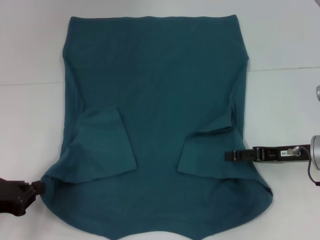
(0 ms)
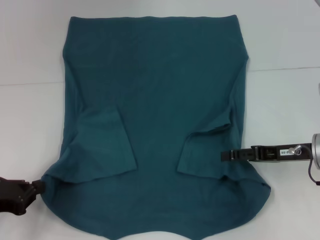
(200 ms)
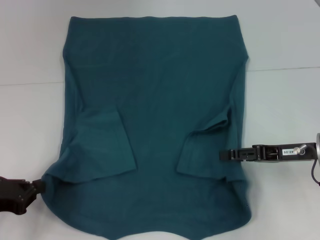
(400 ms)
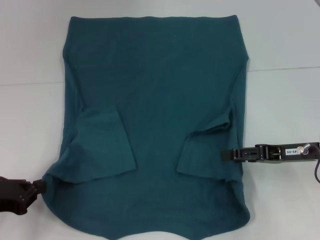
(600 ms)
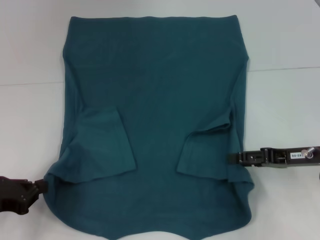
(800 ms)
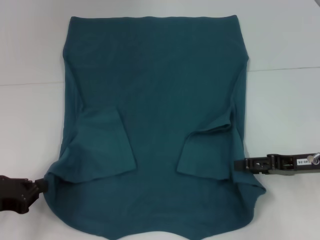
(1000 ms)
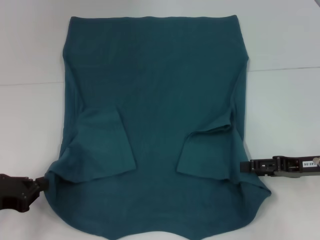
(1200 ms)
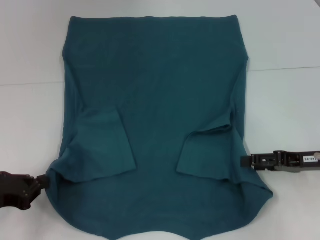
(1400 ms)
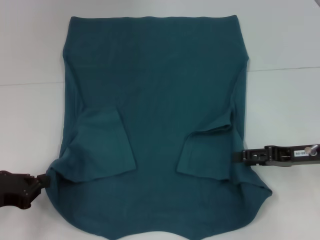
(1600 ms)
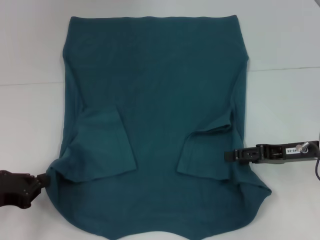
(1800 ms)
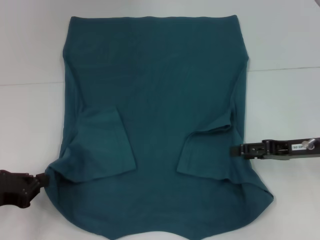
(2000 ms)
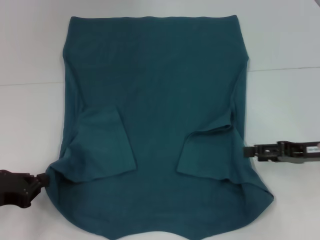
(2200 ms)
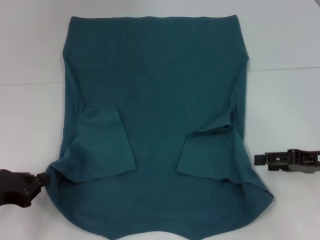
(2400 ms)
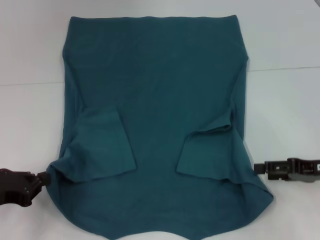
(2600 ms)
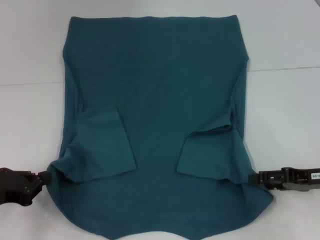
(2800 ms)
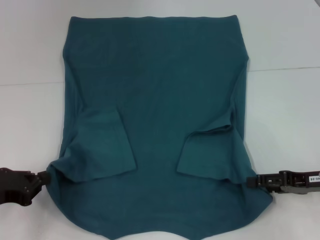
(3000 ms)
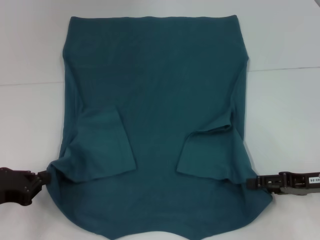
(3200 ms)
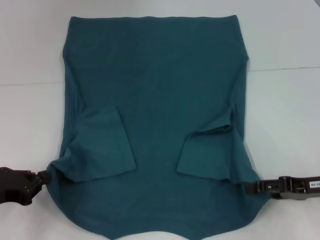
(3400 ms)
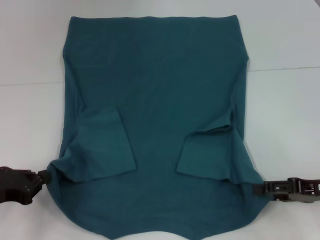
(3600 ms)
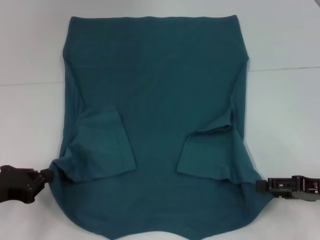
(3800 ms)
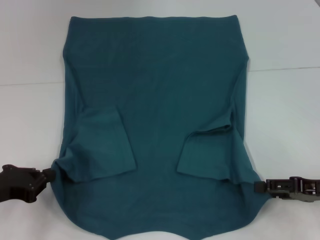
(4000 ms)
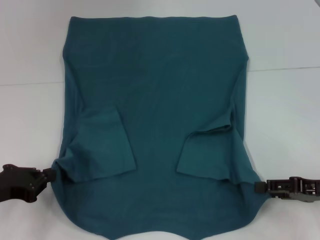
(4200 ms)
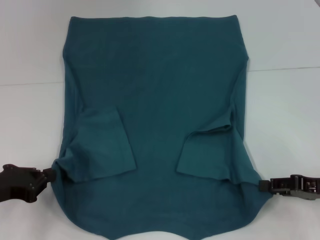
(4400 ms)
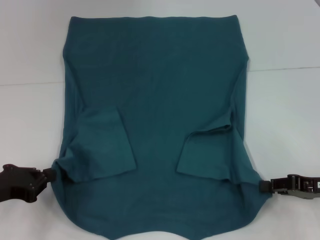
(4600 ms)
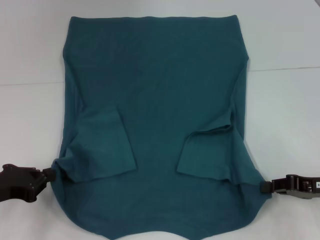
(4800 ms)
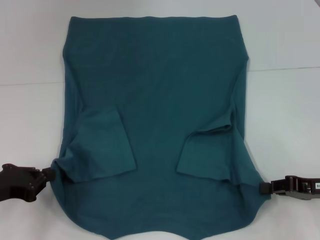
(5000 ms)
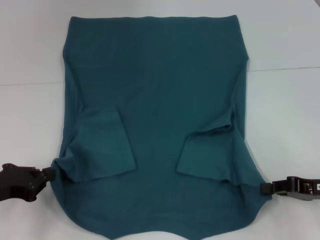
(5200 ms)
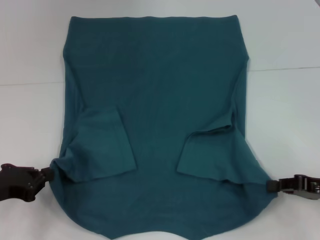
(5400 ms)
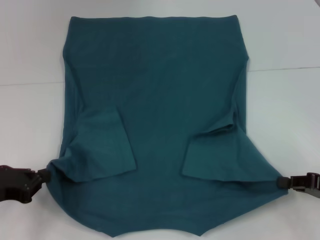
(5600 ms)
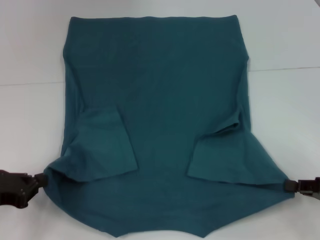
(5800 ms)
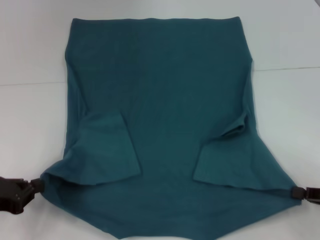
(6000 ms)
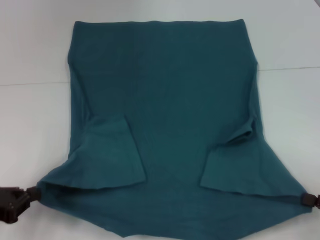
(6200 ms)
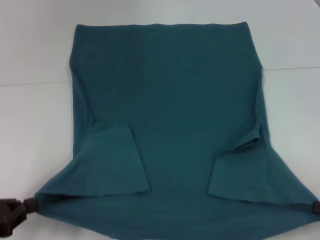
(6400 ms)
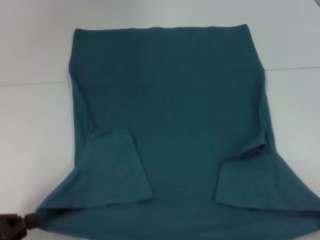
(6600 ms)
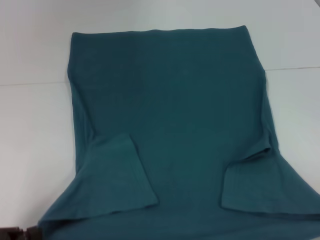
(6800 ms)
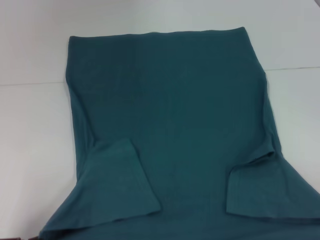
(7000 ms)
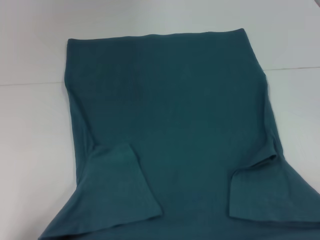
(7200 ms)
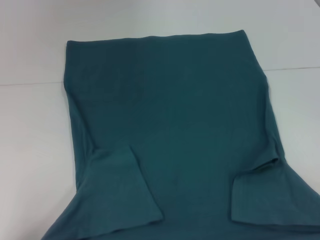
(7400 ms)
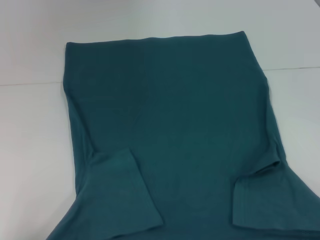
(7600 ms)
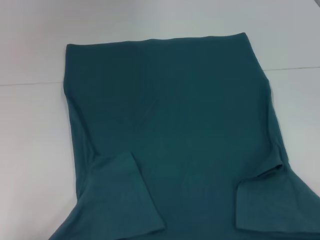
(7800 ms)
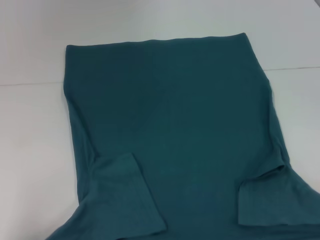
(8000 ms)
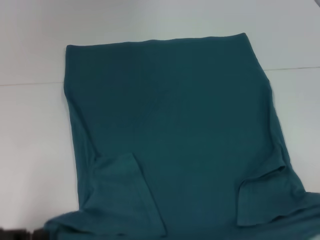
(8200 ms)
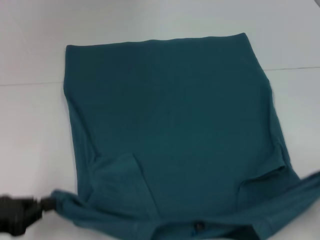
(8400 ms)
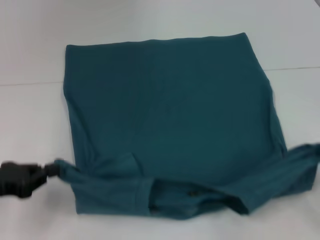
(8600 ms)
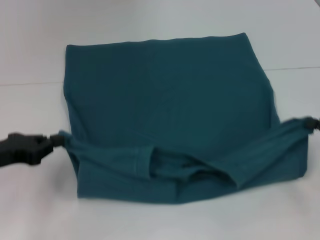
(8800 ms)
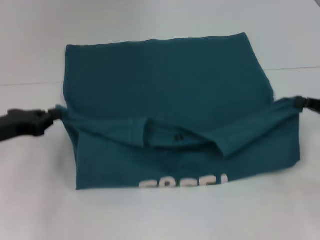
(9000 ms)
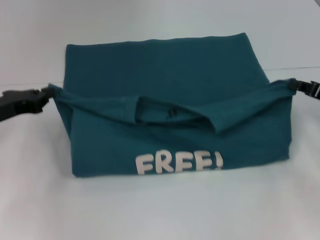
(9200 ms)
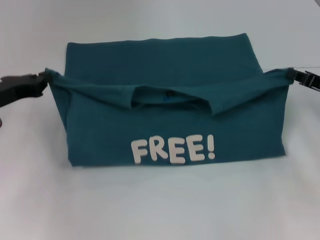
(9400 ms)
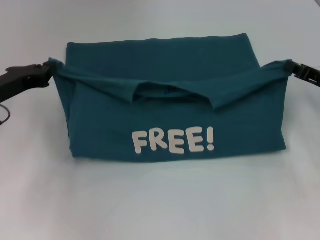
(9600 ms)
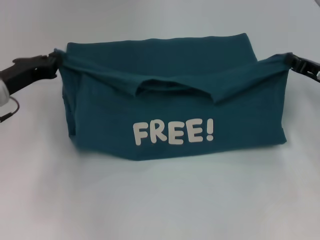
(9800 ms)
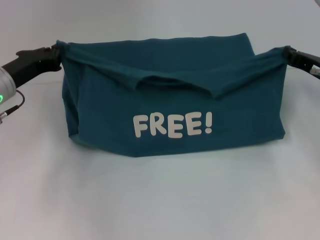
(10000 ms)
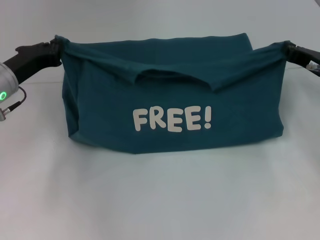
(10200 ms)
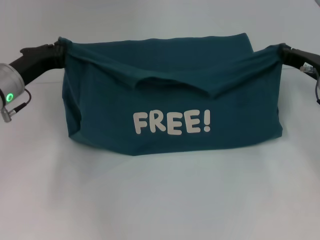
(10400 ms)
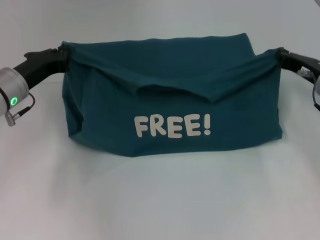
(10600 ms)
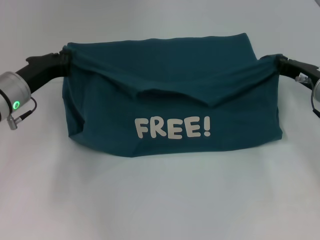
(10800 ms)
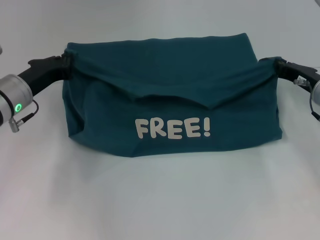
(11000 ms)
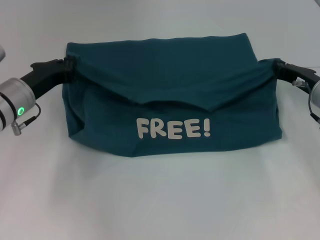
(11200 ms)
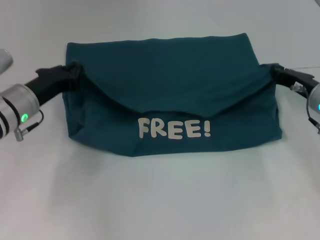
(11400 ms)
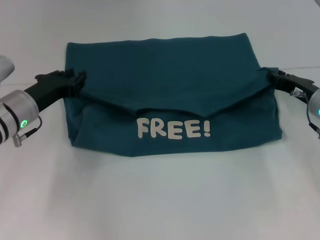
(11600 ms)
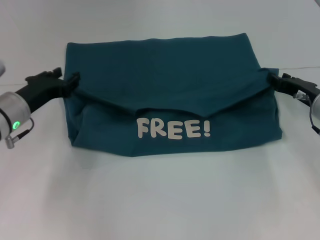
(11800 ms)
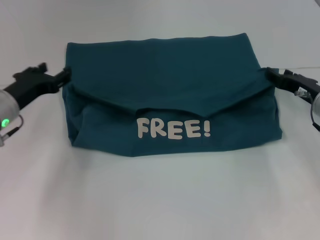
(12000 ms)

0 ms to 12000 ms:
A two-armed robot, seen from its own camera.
Step, 0 ms to 5200 ms: Grab the bottom right corner with your right hand.
Step, 5400 ms to 12000 ms: Fold the clothes to the left.
Step, 5400 ms to 12000 ms: Fold the clothes to the right.
0 ms to 3000 ms: There are only small adjustments of the grippers.
3000 ms to 4400 ms: The grippers make only small movements.
4400 ms to 6000 ms: The right gripper moves backward, roughly 5 cm, and closes its fingers.
6000 ms to 7600 ms: The right gripper is displaced backward and to the right by roughly 10 cm. The left gripper moves backward, approximately 10 cm.
7600 ms to 9000 ms: The two grippers go approximately 20 cm forward.
9000 ms to 10400 ms: The left gripper goes roughly 10 cm forward and to the right. The right gripper shifts approximately 10 cm forward and to the left.
10400 ms to 12000 ms: The right gripper opens up, while the left gripper opens.

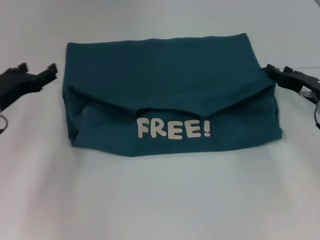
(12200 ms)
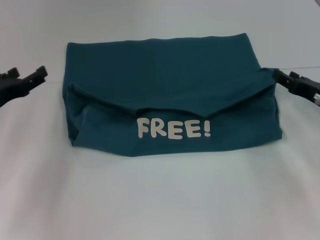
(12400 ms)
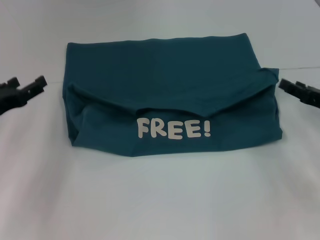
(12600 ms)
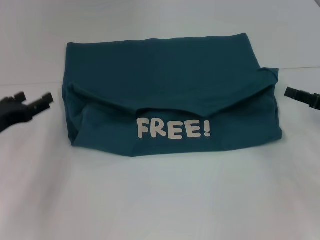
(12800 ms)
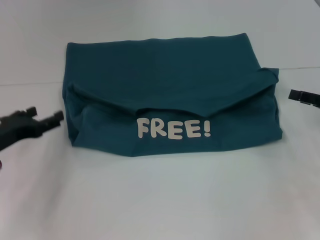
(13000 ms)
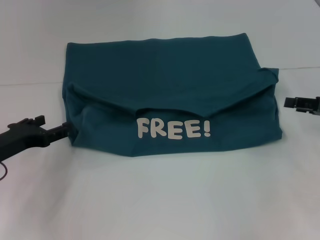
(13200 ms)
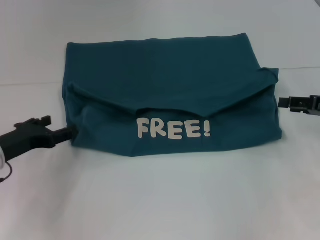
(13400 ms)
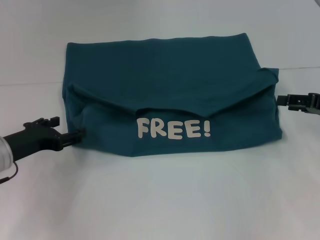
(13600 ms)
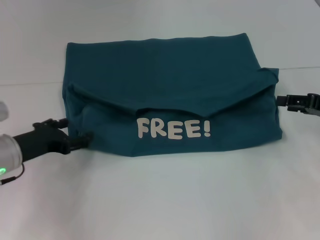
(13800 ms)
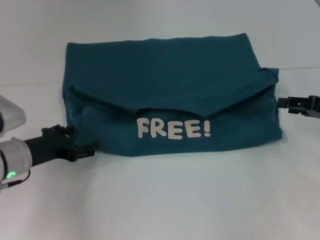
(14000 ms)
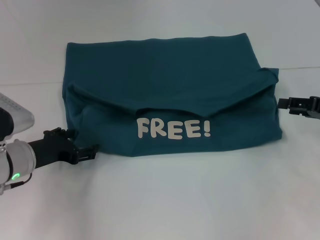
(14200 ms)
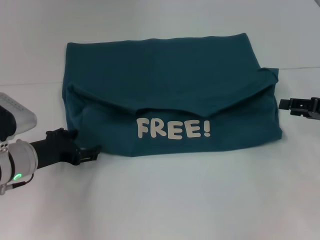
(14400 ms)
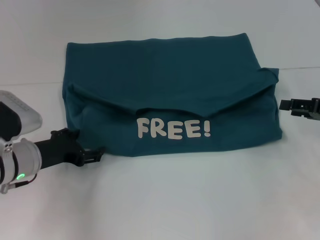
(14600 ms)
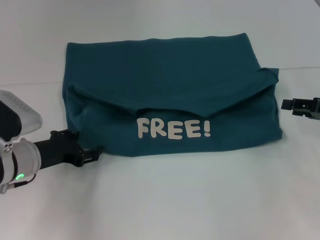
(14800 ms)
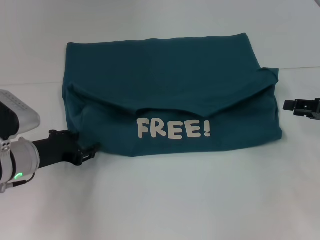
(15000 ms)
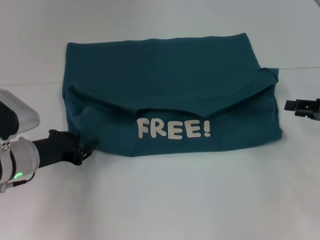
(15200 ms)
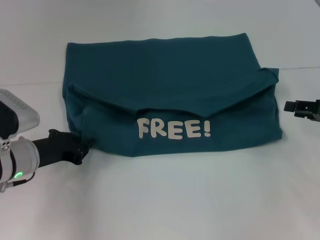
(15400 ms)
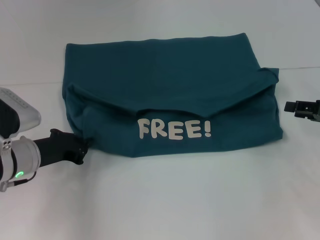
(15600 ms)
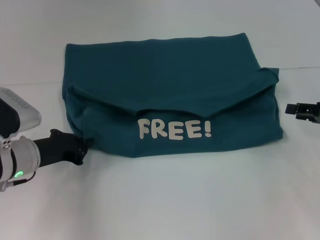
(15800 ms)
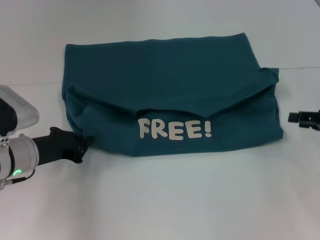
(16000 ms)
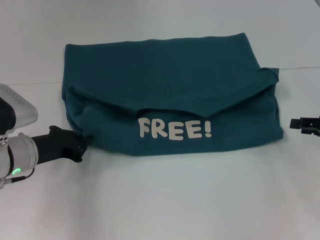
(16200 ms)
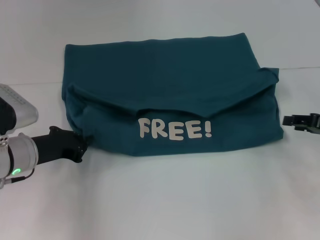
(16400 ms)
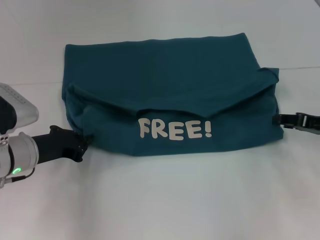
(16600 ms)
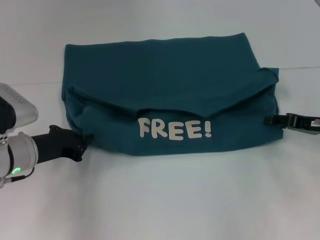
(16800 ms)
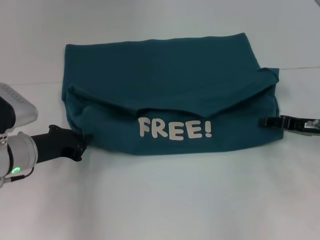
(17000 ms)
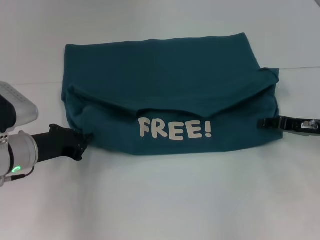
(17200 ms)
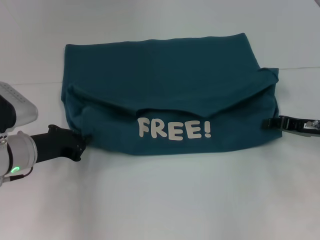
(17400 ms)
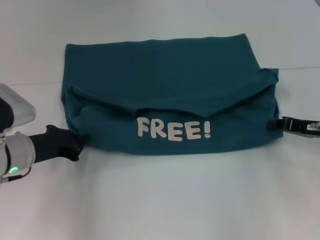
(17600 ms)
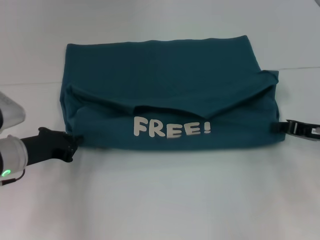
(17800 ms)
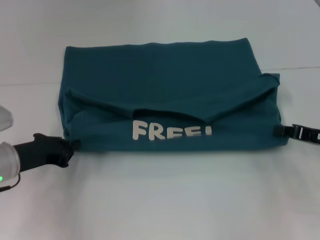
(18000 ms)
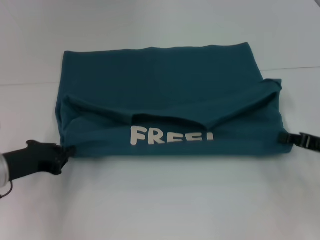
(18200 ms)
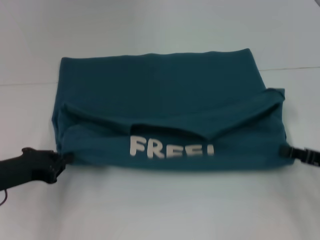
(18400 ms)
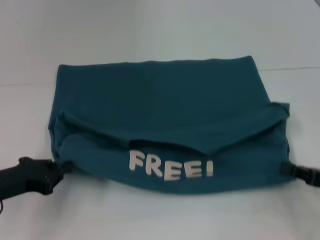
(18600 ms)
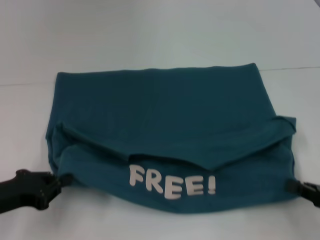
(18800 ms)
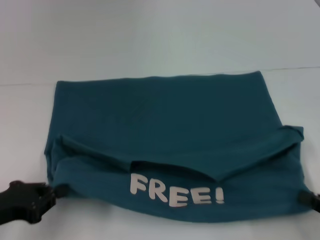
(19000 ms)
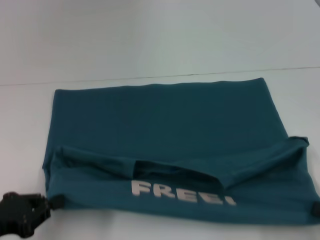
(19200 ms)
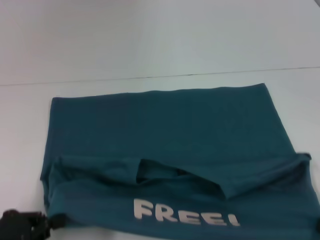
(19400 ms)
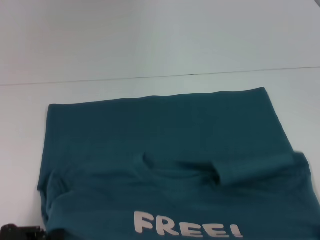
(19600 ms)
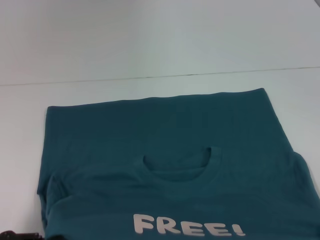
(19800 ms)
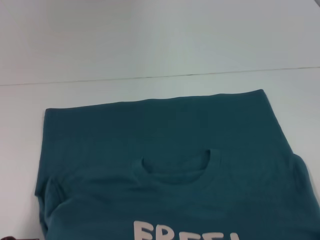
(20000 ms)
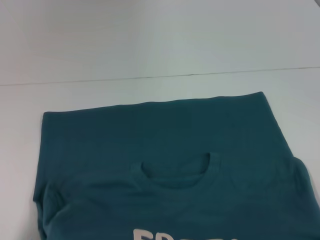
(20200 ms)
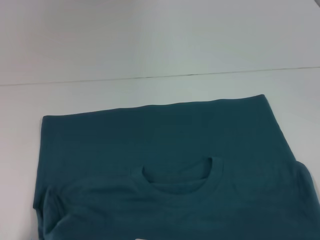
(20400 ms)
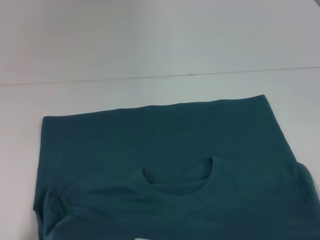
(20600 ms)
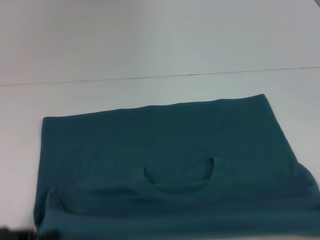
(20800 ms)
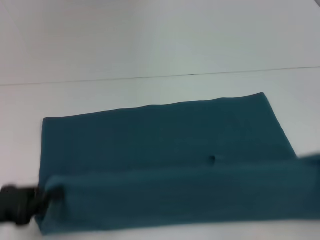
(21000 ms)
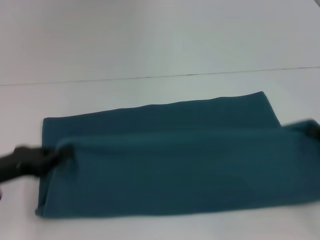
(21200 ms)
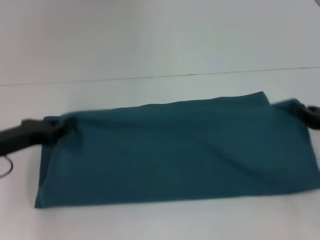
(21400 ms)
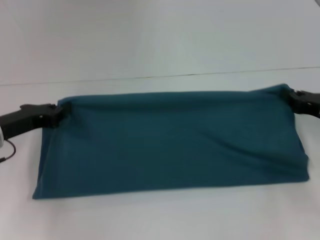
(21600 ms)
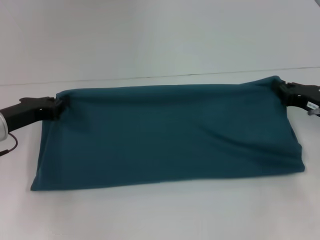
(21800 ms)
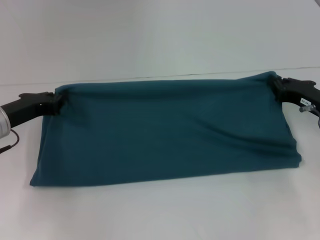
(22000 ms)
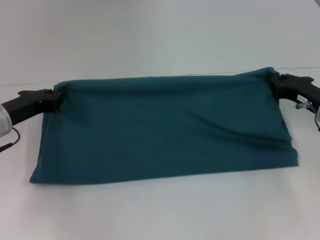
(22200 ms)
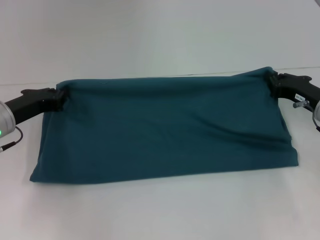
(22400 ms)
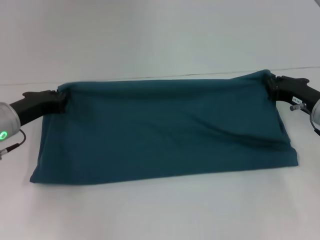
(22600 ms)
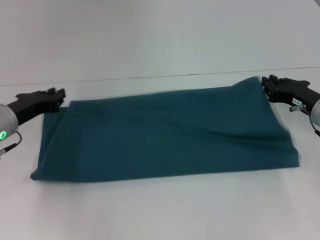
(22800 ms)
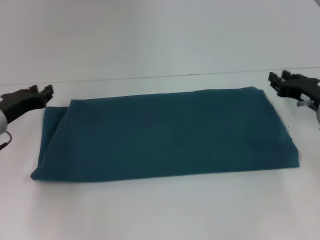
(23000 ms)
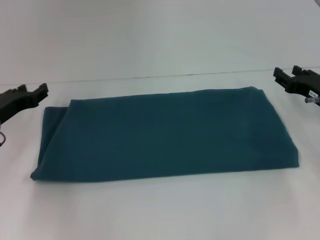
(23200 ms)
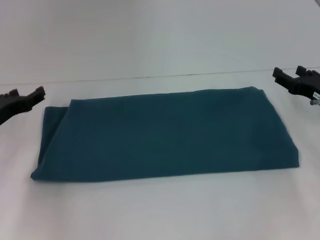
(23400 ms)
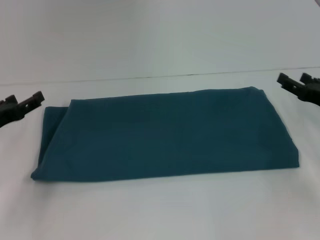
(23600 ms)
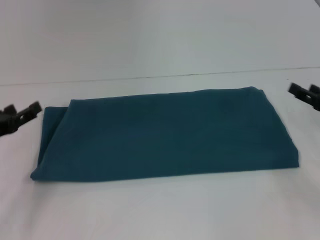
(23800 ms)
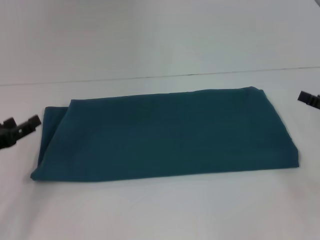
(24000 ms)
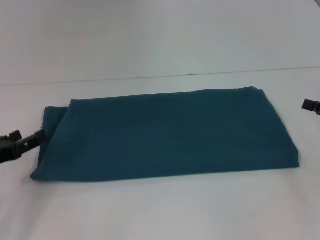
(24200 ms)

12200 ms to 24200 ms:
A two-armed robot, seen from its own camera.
Step, 12200 ms to 20000 ms: Pull the clothes with your left hand.
Step, 12200 ms to 20000 ms: Pull the clothes with your right hand.
Step, 20200 ms to 23000 ms: Fold the clothes to the right.
12200 ms to 13800 ms: The right gripper moves to the right, some 5 cm, while the left gripper moves about 5 cm.
13800 ms to 15200 ms: The left gripper closes its fingers.
15200 ms to 16600 ms: The left gripper closes its fingers.
16600 ms to 18200 ms: The right gripper closes.
18200 ms to 19800 ms: Both grippers travel together backward, roughly 15 cm.
19800 ms to 21200 ms: Both grippers travel together forward, some 10 cm.
21200 ms to 22600 ms: The left gripper goes about 10 cm forward; the right gripper travels forward and to the left by some 15 cm.
22600 ms to 24200 ms: The left gripper moves backward and to the left, approximately 10 cm, and opens up, while the right gripper moves to the right and backward, roughly 10 cm, and opens.
